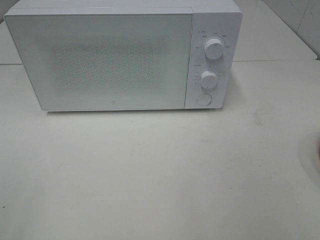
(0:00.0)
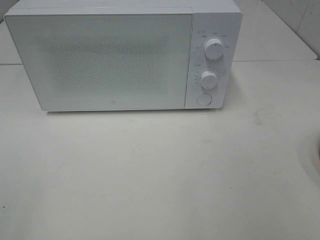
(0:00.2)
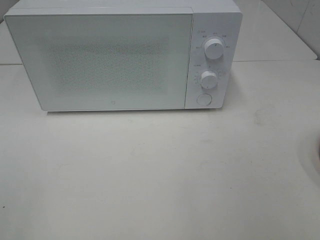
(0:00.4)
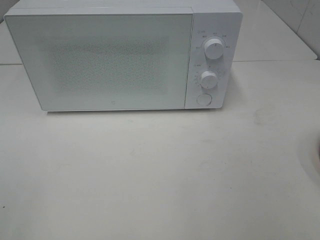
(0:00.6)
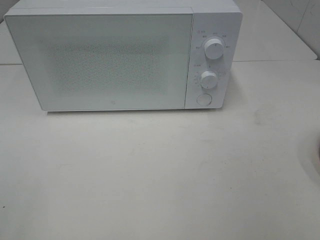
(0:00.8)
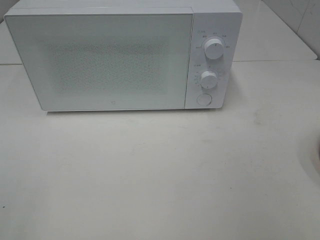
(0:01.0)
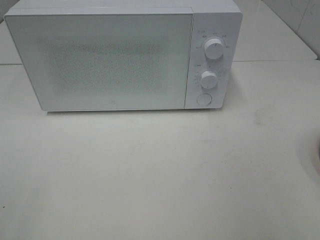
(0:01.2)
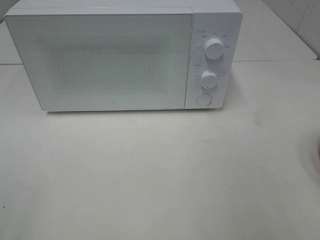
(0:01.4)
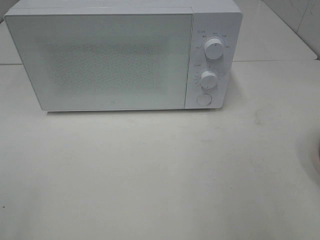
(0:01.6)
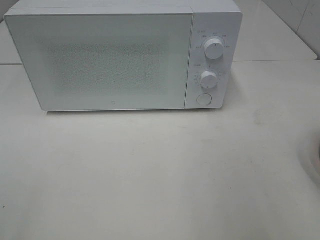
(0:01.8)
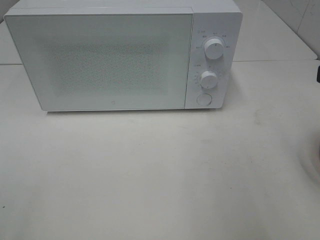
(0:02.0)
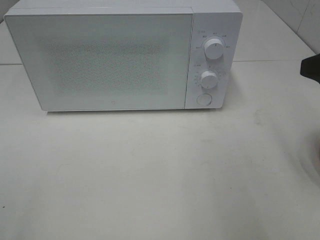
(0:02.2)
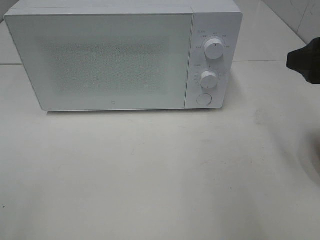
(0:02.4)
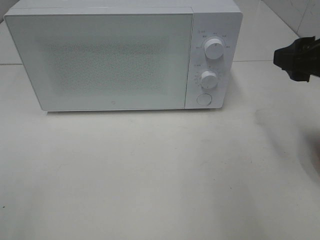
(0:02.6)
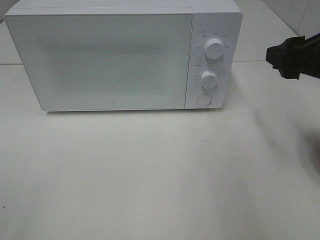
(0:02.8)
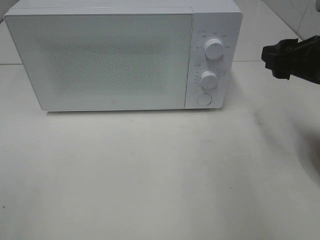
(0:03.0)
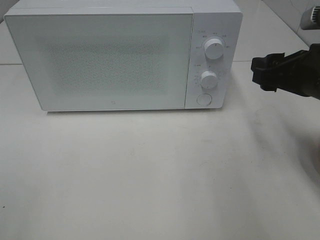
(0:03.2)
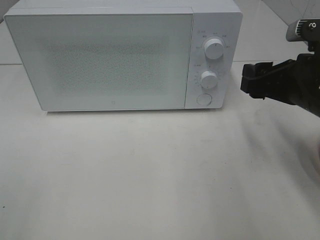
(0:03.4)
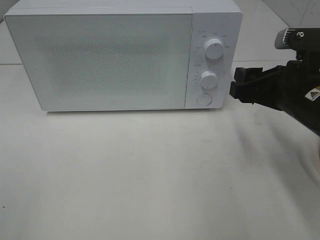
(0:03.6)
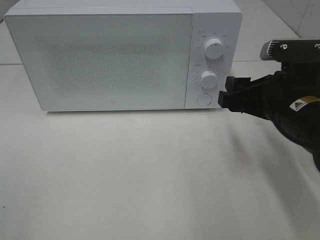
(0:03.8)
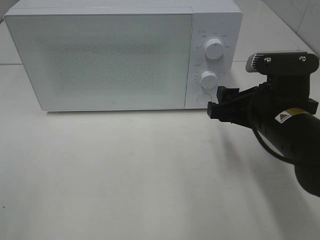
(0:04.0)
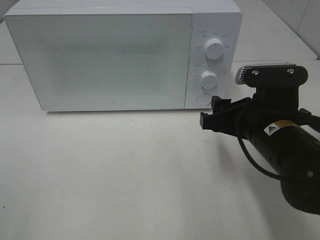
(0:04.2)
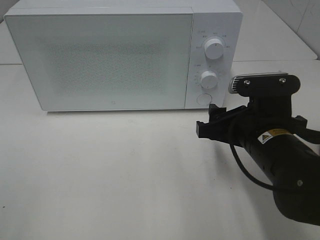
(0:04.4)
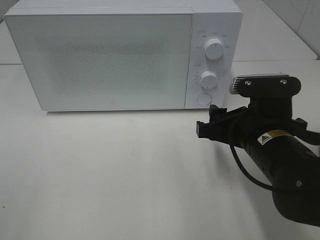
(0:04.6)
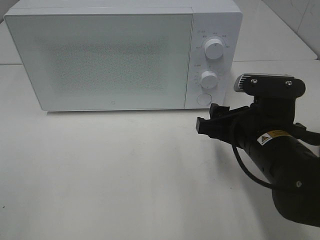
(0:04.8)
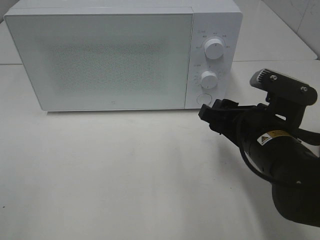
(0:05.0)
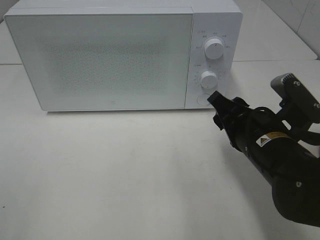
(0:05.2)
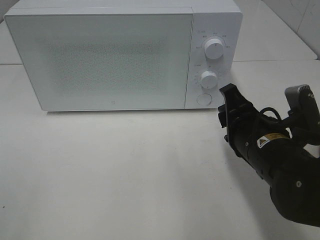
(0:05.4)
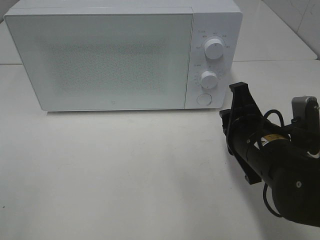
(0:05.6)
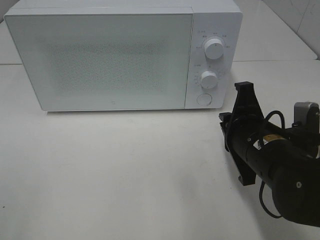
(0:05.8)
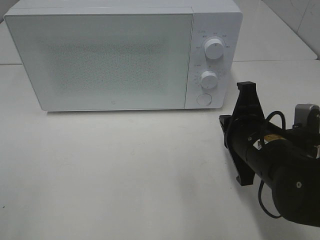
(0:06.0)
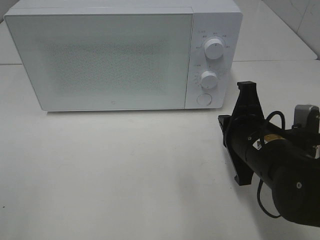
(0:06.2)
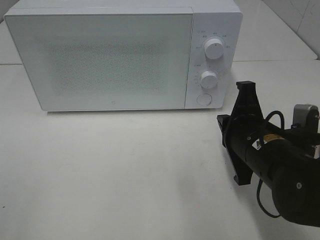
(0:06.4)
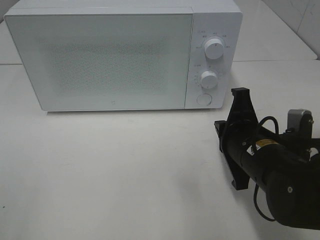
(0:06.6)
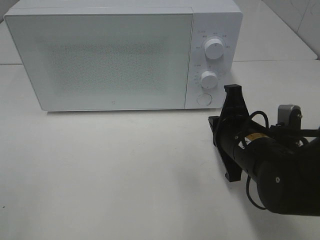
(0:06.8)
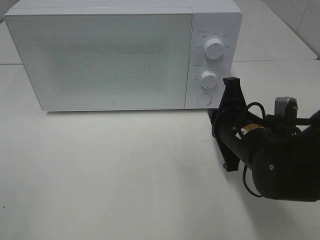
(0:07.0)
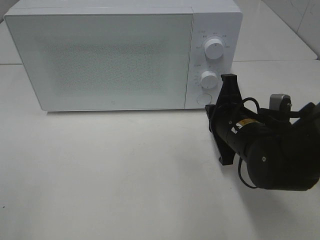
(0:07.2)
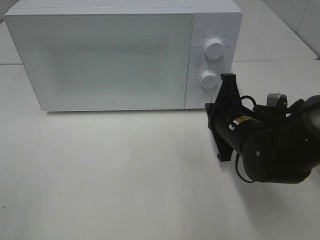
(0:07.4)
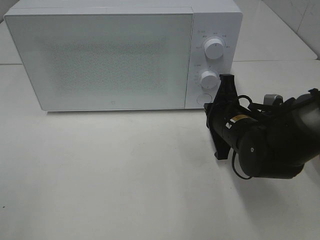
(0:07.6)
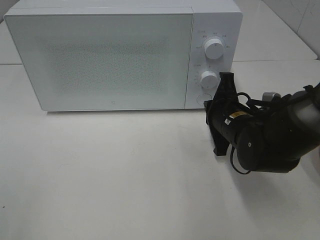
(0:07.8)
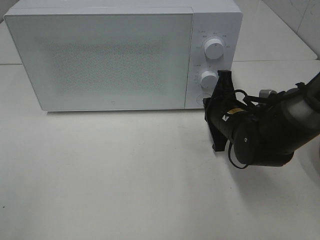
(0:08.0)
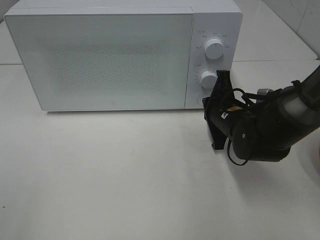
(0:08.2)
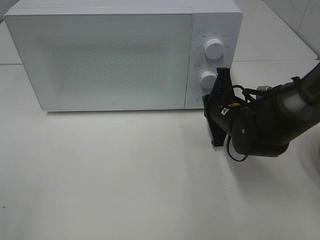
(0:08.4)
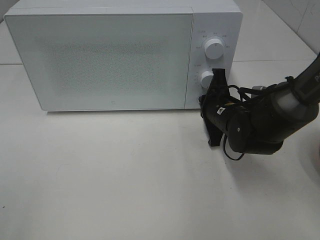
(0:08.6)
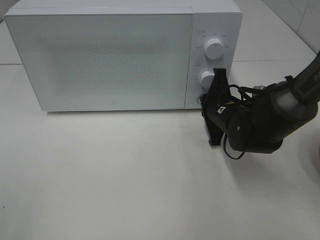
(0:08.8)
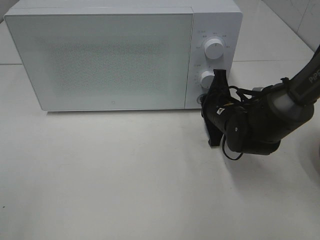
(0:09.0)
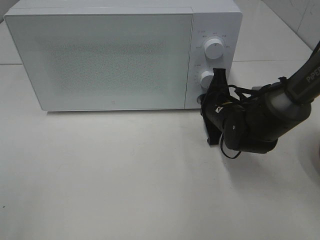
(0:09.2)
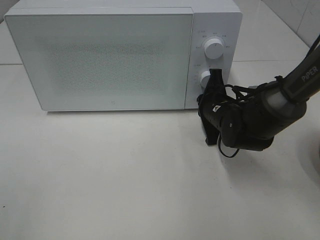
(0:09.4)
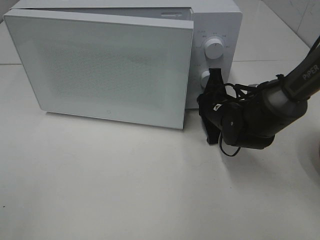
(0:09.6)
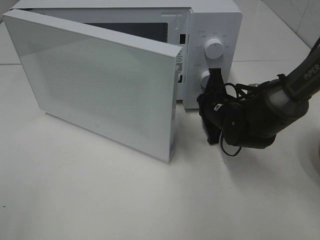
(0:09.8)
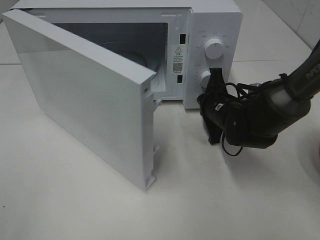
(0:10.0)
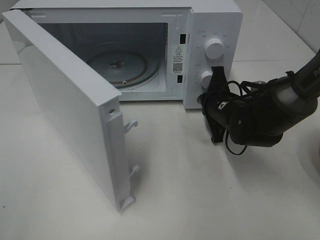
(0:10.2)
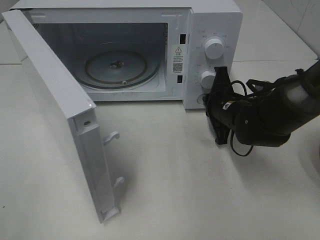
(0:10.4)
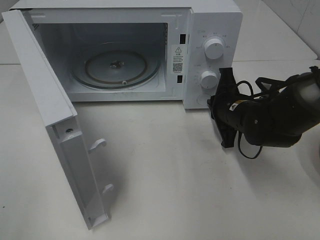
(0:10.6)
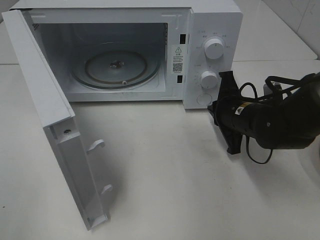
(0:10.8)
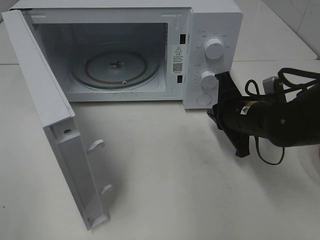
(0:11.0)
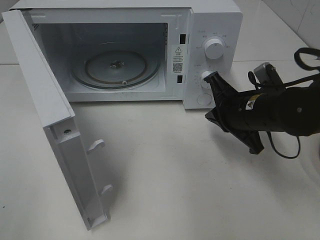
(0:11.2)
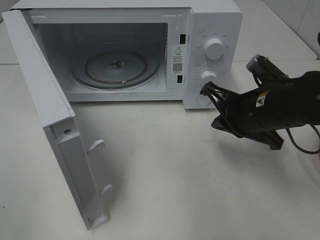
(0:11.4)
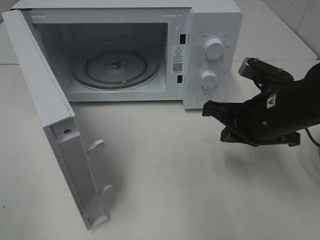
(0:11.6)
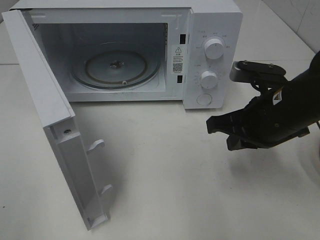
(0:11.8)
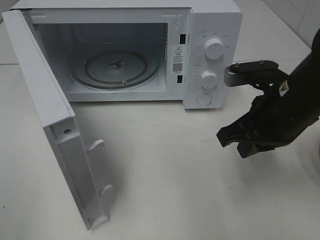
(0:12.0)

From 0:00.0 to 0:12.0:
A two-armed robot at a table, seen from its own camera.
Task of the whole recording: Heat the burger.
Step, from 0:00.0 to 0:10.8: Right hand: press the switch.
From 0:01.6 to 0:03.0: The right gripper goes about 15 cm forward and downward.
From 0:03.0 to 0:04.4: The right gripper travels to the left and downward by some 15 cm.
From 0:04.4 to 0:06.0: The right gripper closes.
From 0:06.0 to 0:07.6: The right gripper goes some 10 cm forward.
From 0:07.6 to 0:09.0: The right gripper travels forward by some 5 cm.
From 0:10.4 to 0:12.0: The right gripper shifts about 15 cm upward and backward.

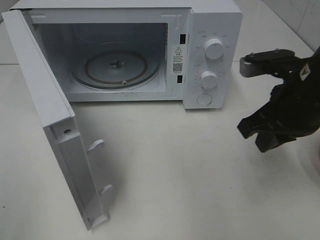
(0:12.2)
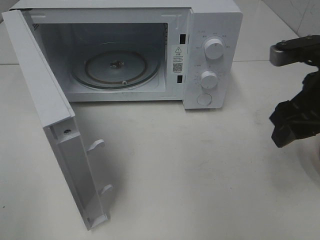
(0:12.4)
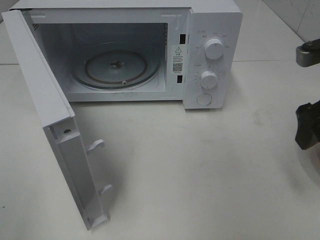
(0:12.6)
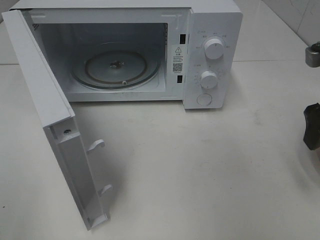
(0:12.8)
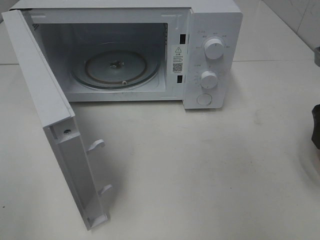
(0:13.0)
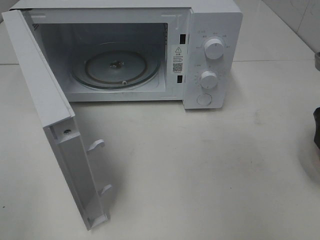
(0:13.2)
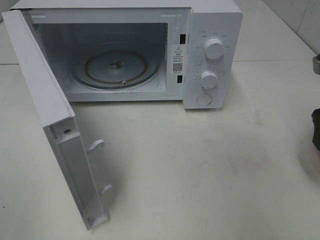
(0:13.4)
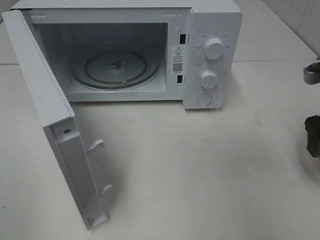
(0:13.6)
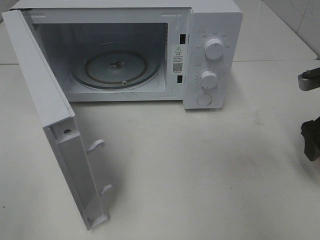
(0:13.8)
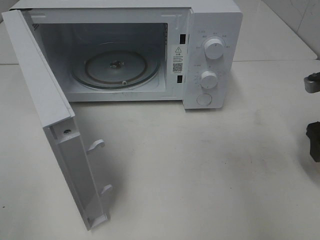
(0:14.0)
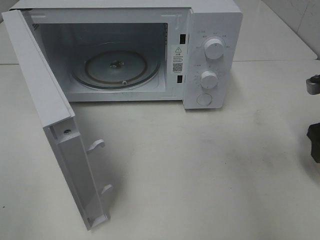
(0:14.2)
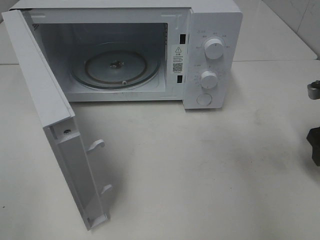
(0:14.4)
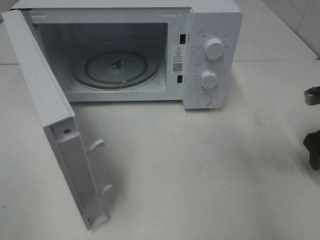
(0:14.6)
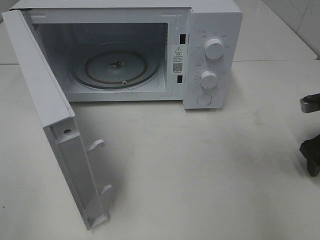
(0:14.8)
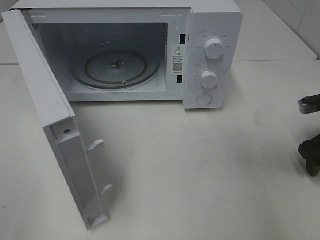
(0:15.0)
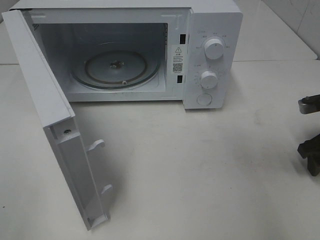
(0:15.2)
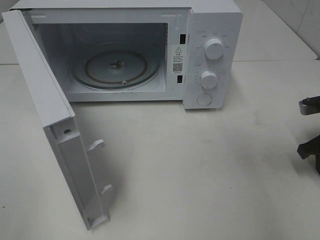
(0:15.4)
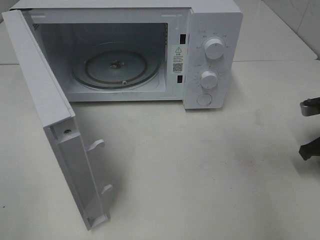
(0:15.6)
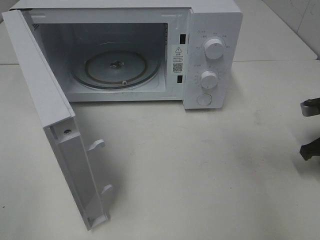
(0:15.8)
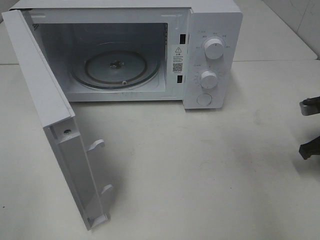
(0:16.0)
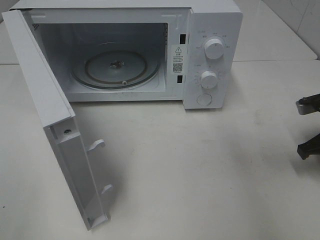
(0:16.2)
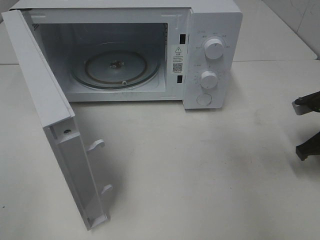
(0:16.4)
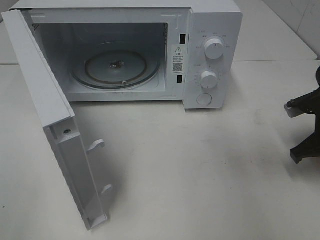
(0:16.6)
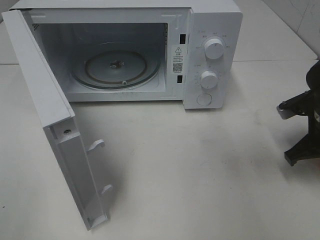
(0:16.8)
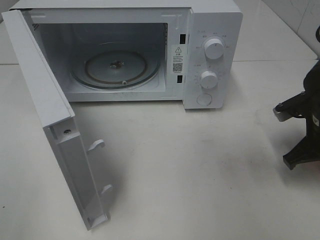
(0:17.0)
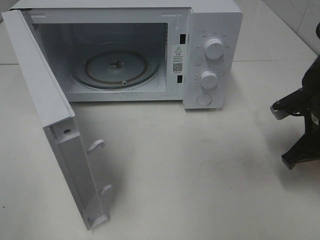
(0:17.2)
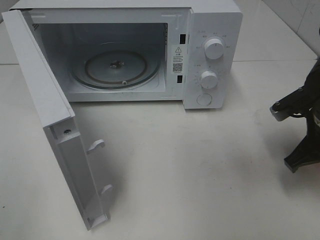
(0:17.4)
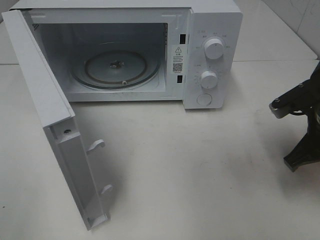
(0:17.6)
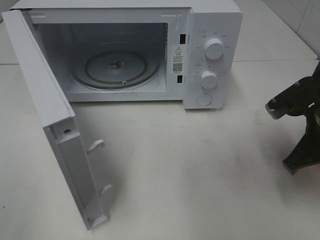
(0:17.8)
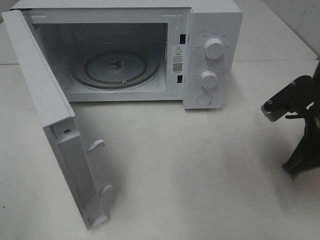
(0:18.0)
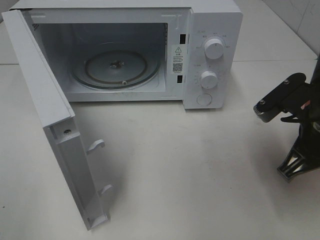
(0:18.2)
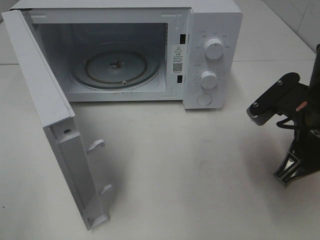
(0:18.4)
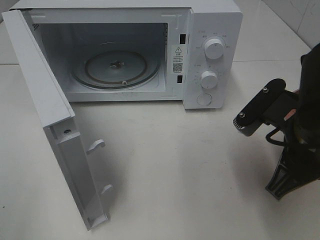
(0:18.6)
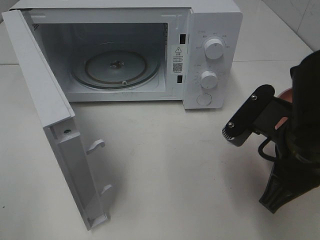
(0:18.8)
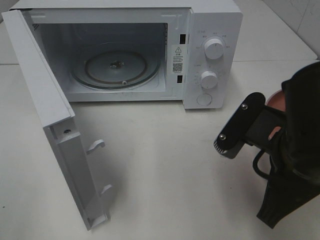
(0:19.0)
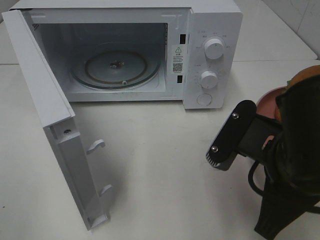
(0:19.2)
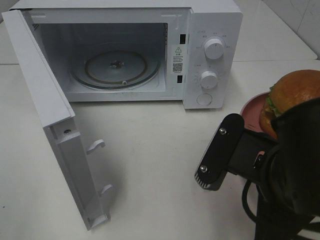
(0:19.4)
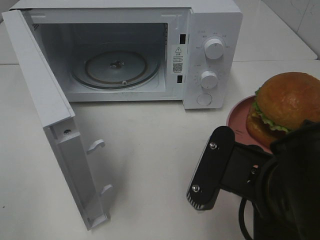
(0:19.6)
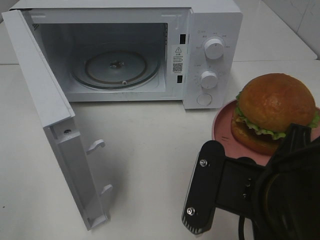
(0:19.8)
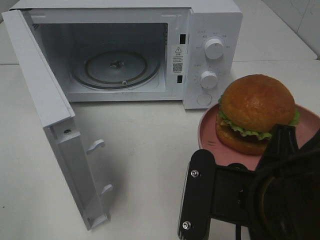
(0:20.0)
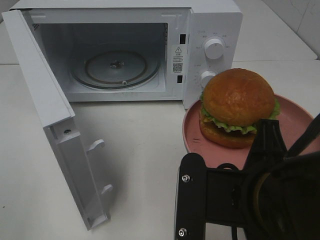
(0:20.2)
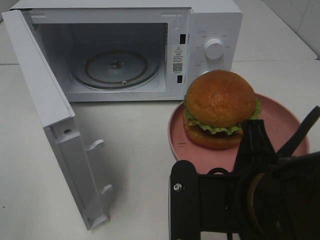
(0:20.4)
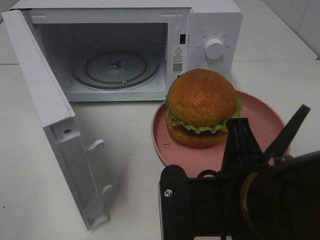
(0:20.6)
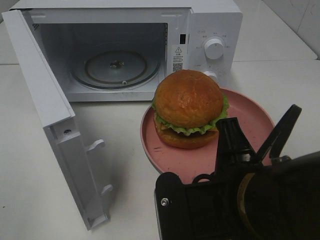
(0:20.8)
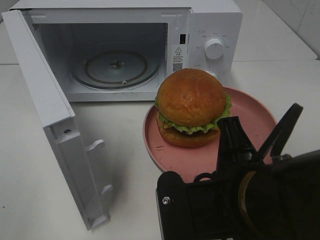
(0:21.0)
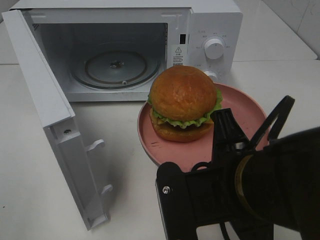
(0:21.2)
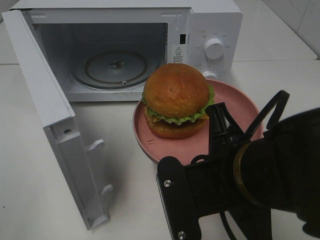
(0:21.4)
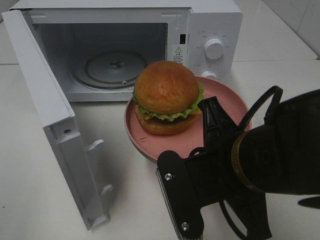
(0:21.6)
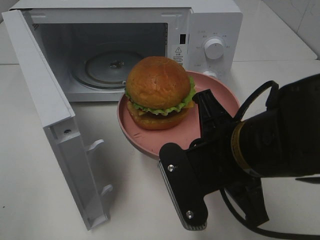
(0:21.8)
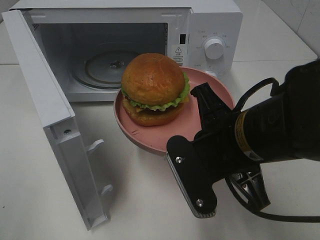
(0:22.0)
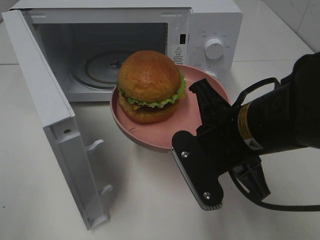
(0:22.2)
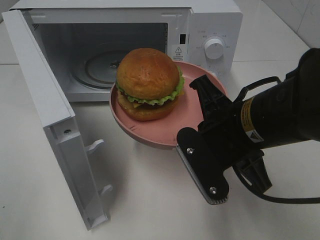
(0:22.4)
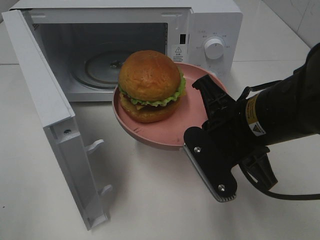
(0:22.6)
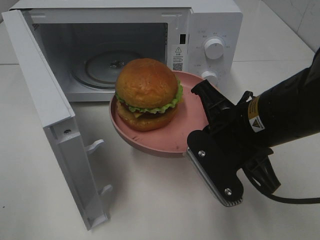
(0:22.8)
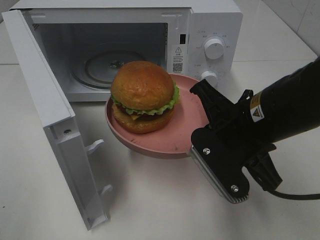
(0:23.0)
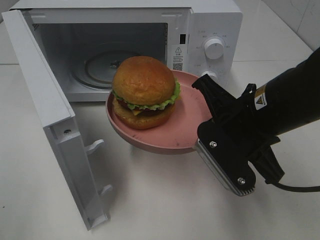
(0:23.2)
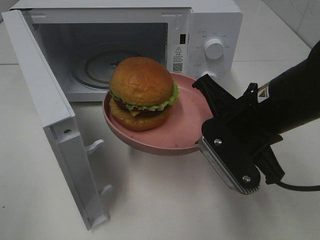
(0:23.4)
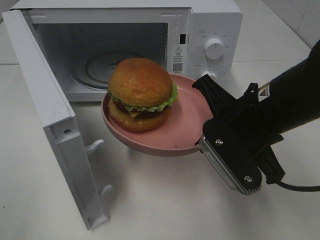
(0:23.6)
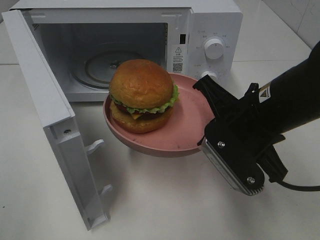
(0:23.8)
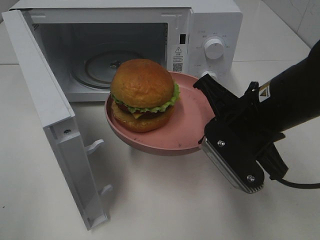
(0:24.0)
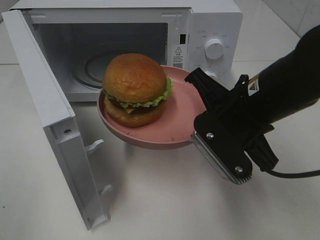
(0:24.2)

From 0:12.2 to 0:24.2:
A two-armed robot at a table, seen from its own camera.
Task of the whole recording: Heat the burger.
Step, from 0:12.2 to 0:16.4: Right hand: grab the plate with the hamburger.
From 0:12.2 to 0:13.8: The right gripper shifts some 10 cm to the right, and opens its fingers.
From 0:13.8 to 0:15.2: The right gripper heads downward, covering approximately 5 cm.
From 0:15.2 to 0:16.6: The right gripper closes up.
From 0:16.6 to 0:18.2: The right gripper is displaced to the left, backward and upward by some 15 cm.
From 0:18.2 to 0:19.8: The right gripper shifts approximately 15 cm backward and to the left.
From 0:21.2 to 0:22.6: The right gripper moves forward, about 10 cm.
From 0:22.6 to 0:24.2: The grippers make only small movements.
